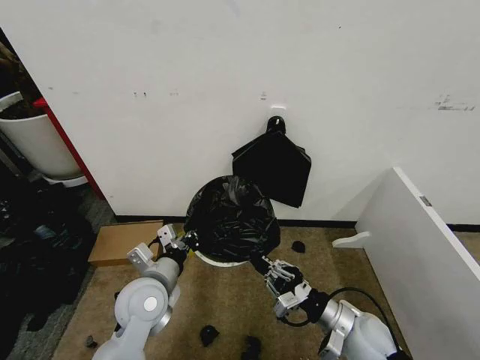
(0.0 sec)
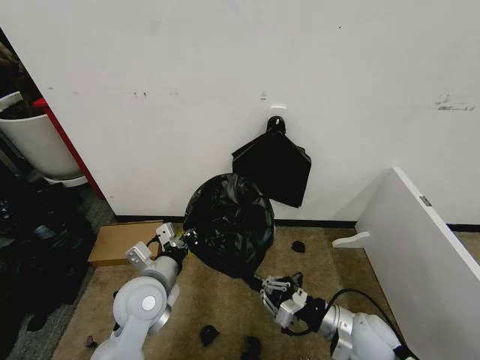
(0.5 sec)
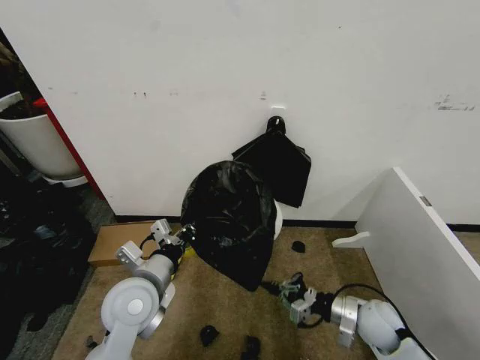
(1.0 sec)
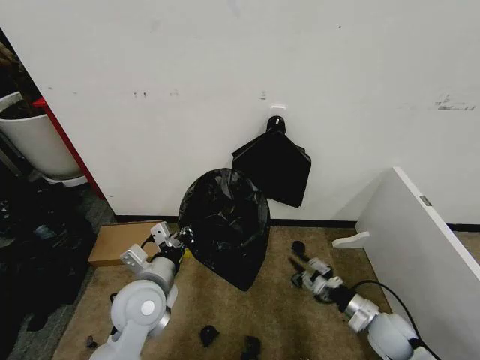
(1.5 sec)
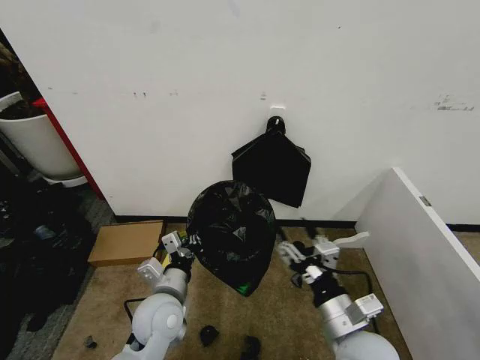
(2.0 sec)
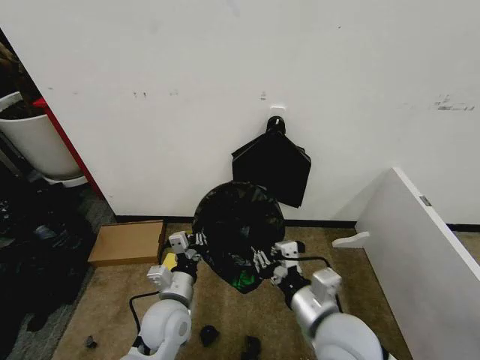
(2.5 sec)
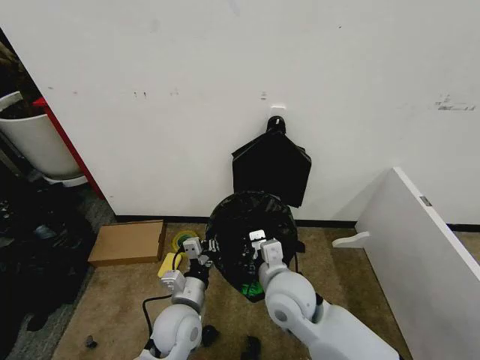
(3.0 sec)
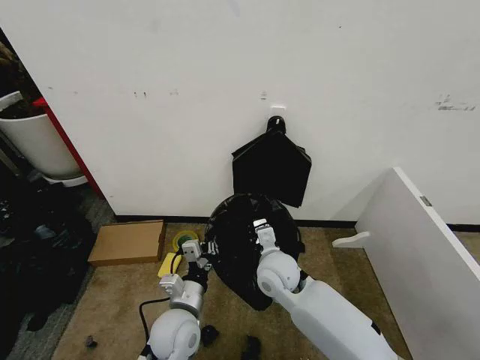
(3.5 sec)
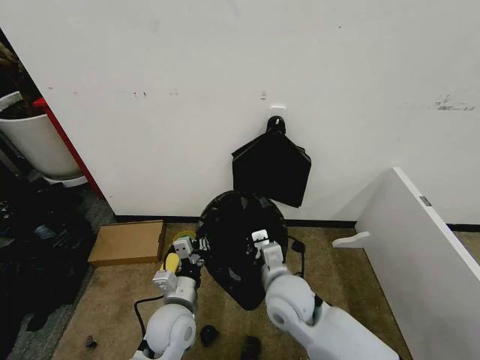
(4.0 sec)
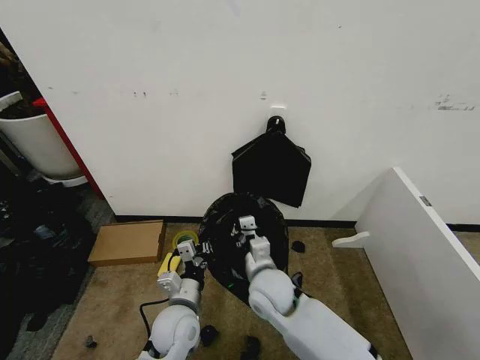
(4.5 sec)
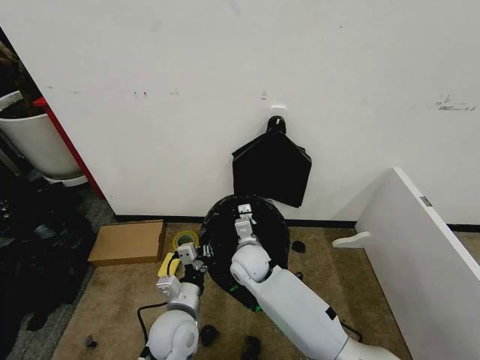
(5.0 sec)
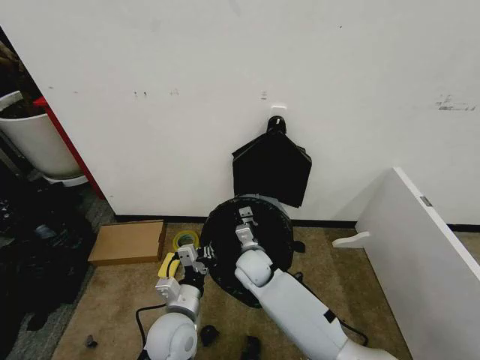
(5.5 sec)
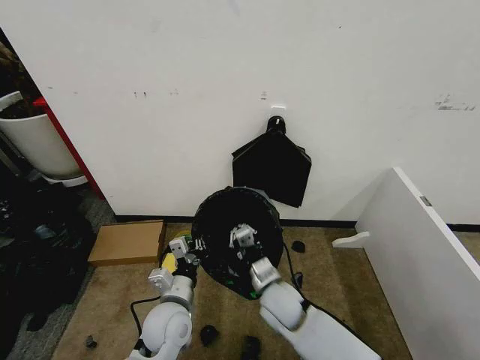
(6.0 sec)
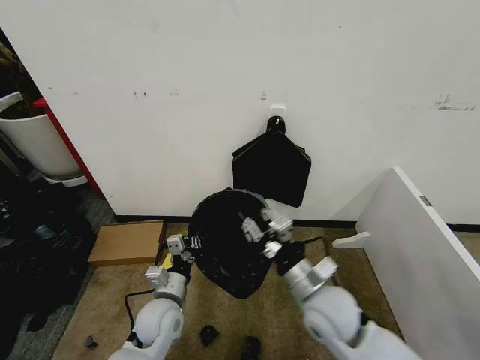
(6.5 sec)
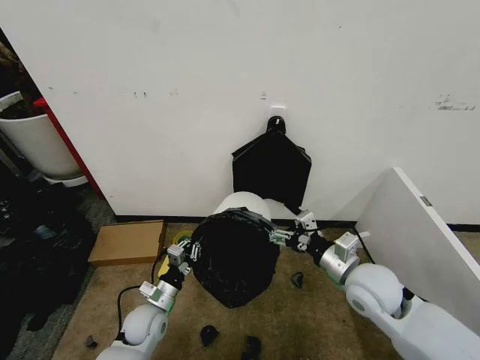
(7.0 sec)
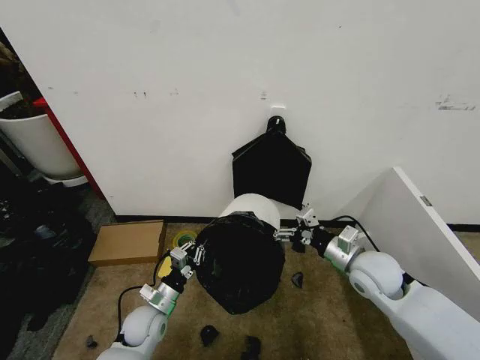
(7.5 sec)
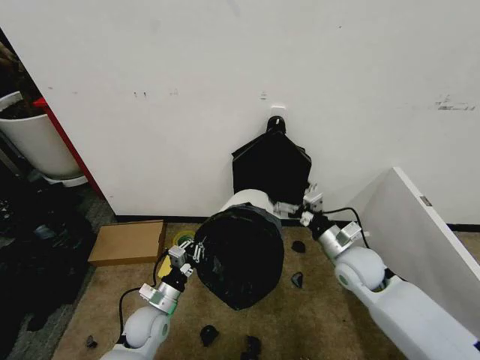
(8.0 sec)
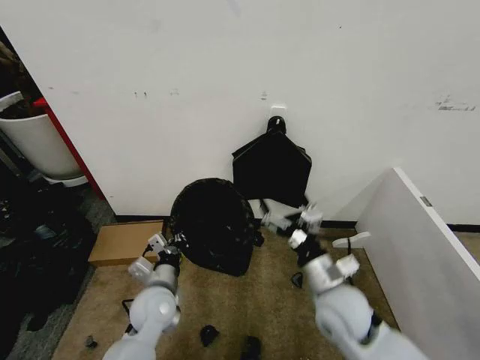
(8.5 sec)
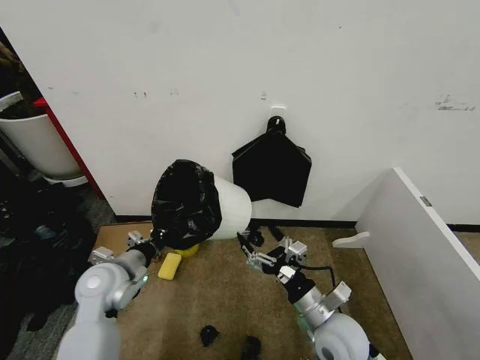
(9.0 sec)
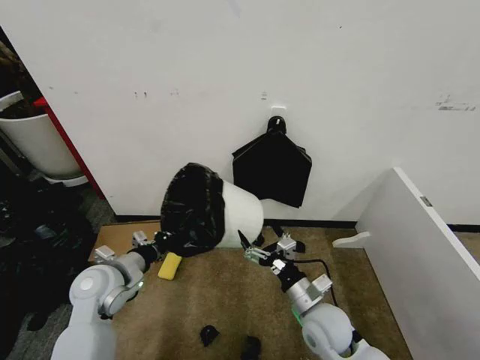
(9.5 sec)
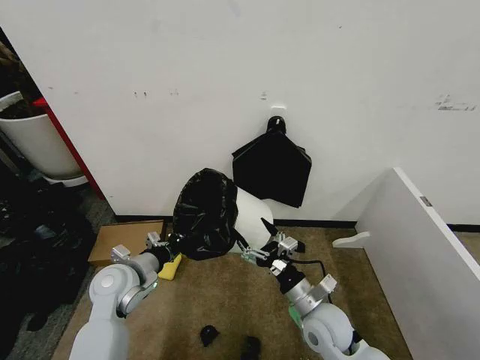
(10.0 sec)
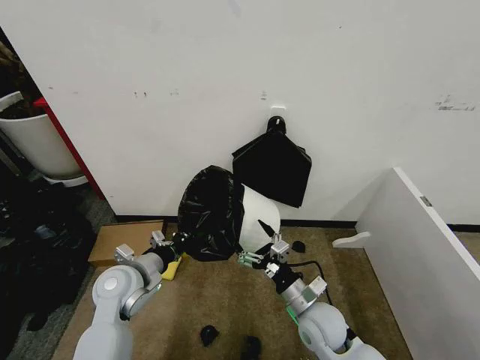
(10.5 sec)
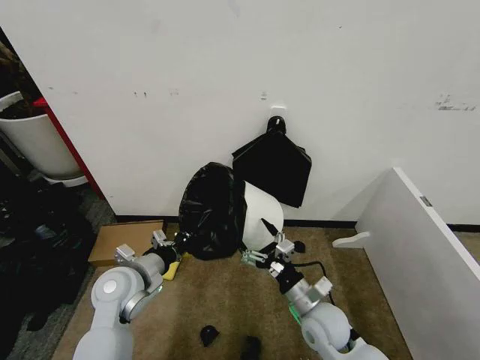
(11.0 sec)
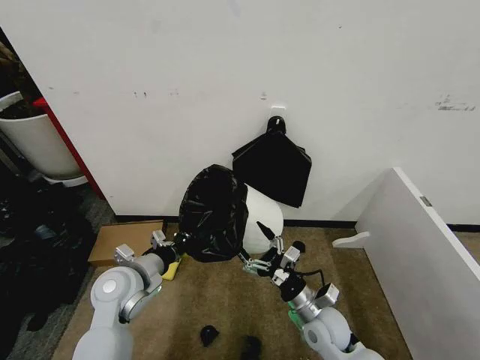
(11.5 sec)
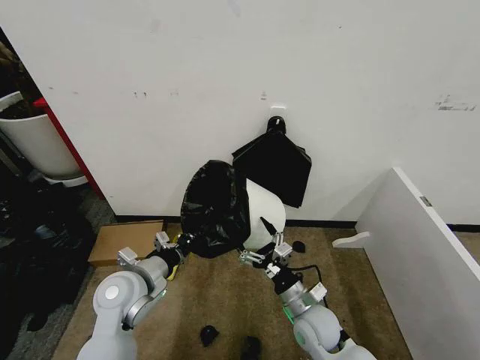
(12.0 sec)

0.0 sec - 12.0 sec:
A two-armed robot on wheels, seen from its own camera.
Task of the whole recording: Place the garbage bag over the trash bin.
0.0 sec - 2.0 sec: The right gripper moves upward and to the left, approximately 10 cm, and opens up; the left gripper changes place by approximately 5 cm.
2.0 sec - 4.0 sec: The right gripper goes approximately 15 cm forward and to the left, and closes its fingers.
4.0 sec - 6.0 sec: The right gripper moves downward, approximately 10 cm, and goes forward and returns, some 10 cm each way.
6.0 sec - 8.0 sec: The left gripper moves downward and to the left, about 10 cm, while the right gripper shifts roughly 20 cm to the right and upward, and opens.
8.0 sec - 10.0 sec: The left gripper heads upward, covering approximately 15 cm, while the right gripper goes roughly 15 cm backward, to the left and downward.
10.0 sec - 12.0 sec: The left gripper ends up approximately 5 cm from where it was.

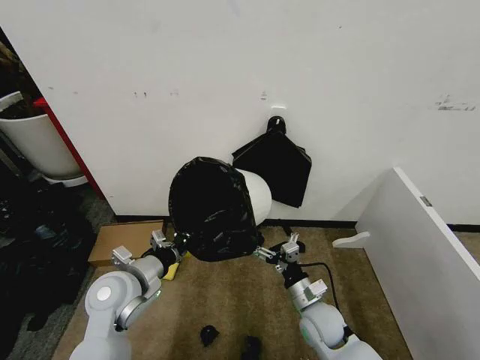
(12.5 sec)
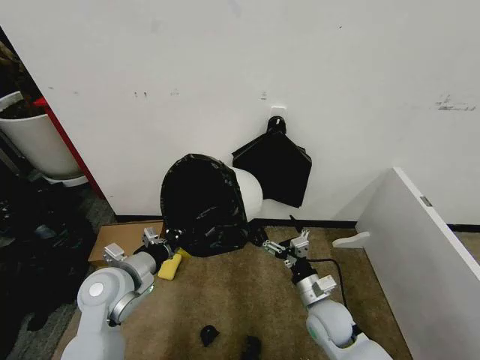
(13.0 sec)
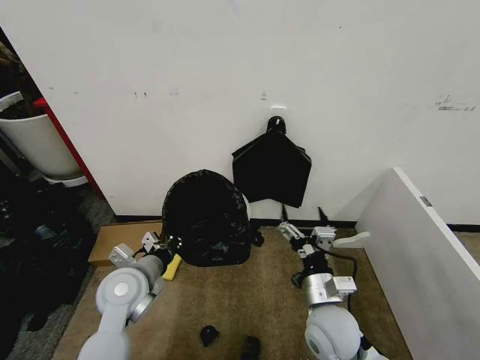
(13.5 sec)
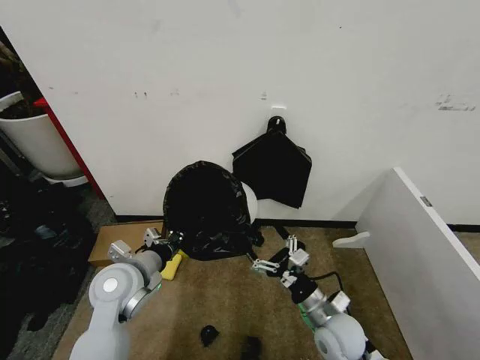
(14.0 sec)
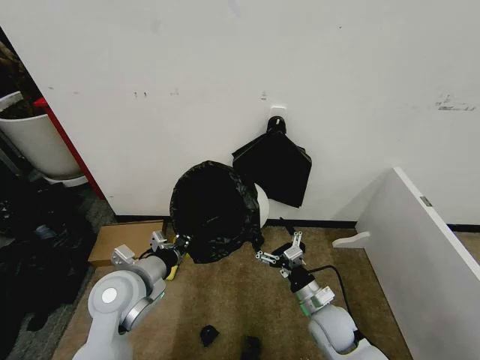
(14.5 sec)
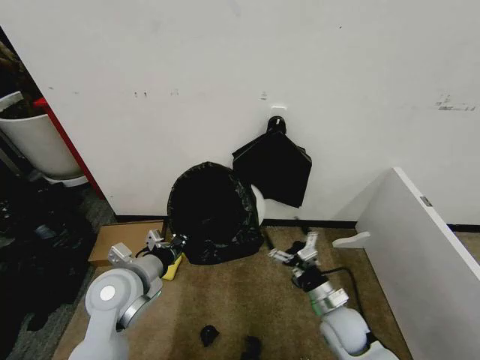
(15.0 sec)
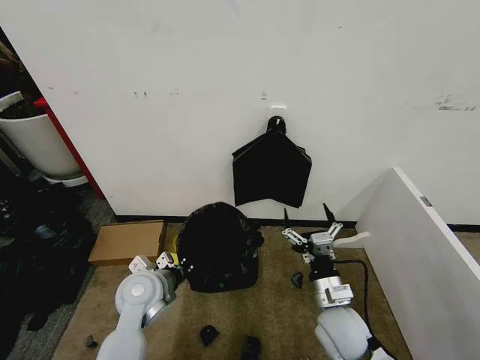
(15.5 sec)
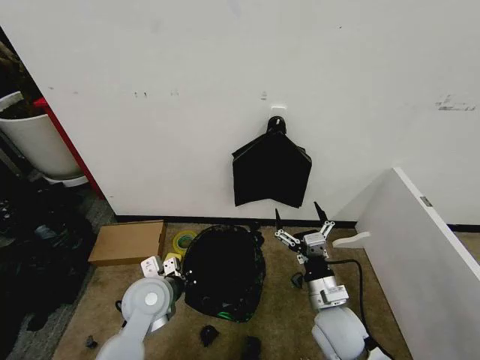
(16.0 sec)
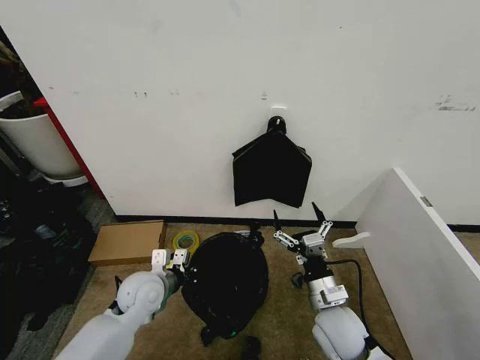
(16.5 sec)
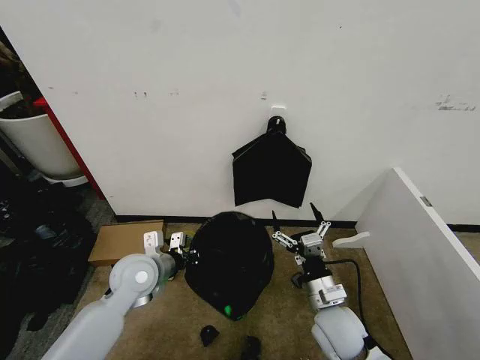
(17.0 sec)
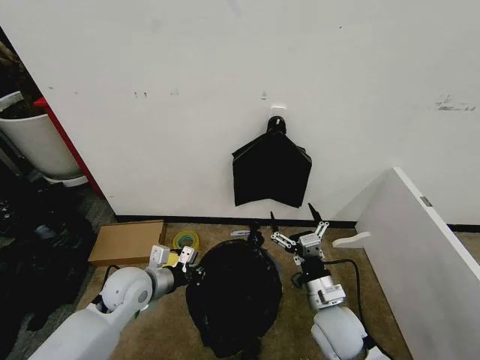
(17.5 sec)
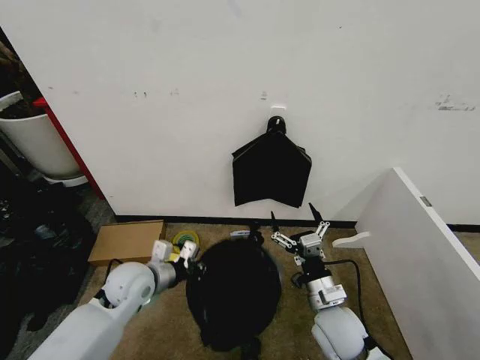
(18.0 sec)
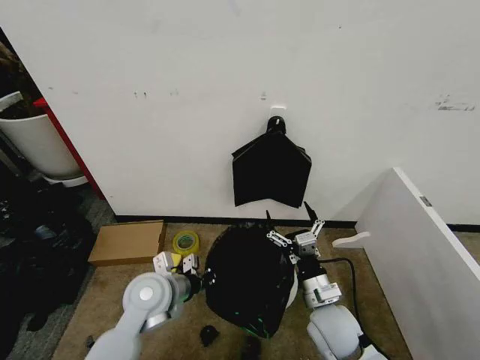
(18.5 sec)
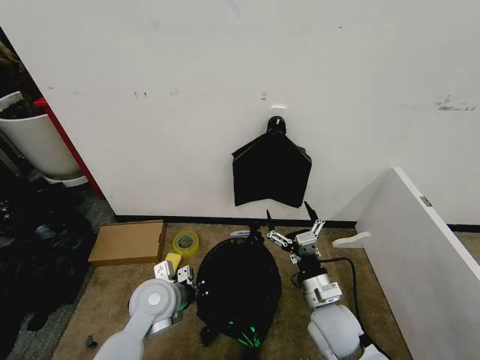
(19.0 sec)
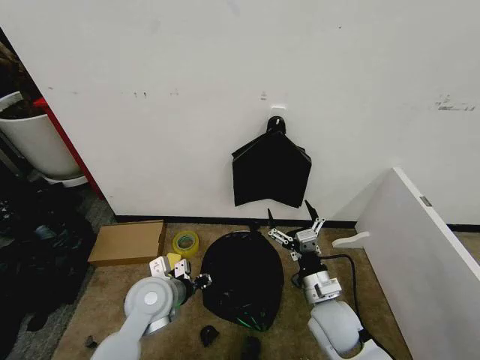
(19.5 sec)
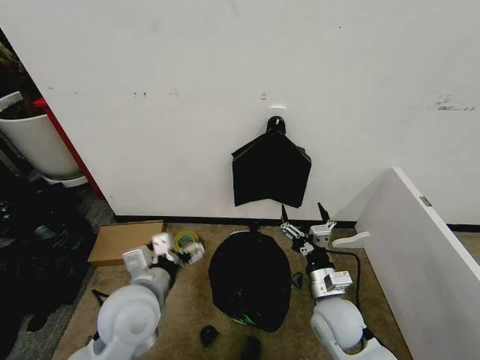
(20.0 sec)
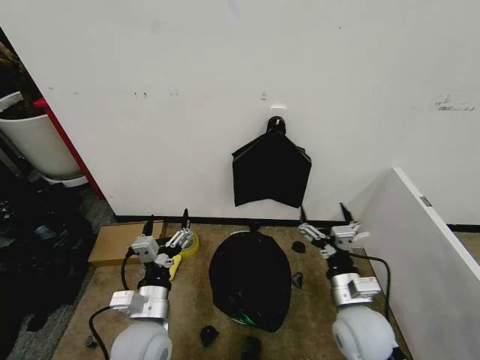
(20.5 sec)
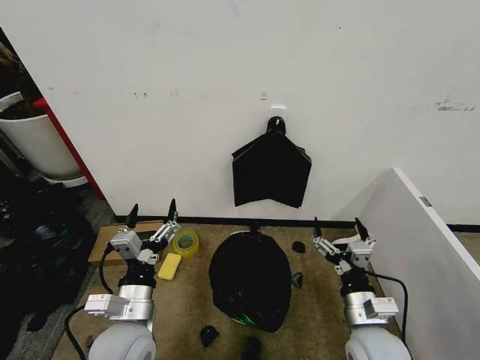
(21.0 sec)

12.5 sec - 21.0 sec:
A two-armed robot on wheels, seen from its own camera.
Task of the whole recording: Place the garbage bag over the trash bin.
12.5 sec - 14.5 sec: The right gripper reaches roughly 10 cm upward, then returns.
14.5 sec - 16.5 sec: The right gripper moves upward, some 5 cm. The left gripper is displaced downward by about 10 cm.
19.0 sec - 21.0 sec: The left gripper shifts about 10 cm backward, and opens up, while the right gripper moves to the right, some 5 cm.

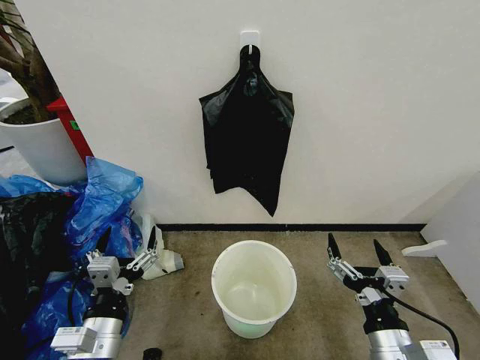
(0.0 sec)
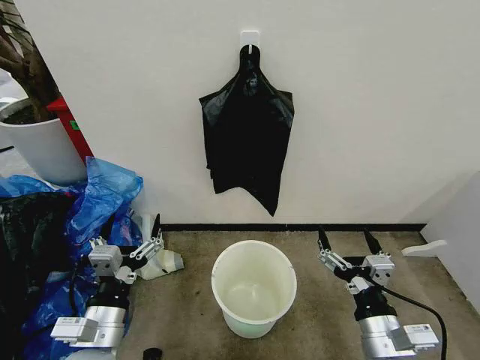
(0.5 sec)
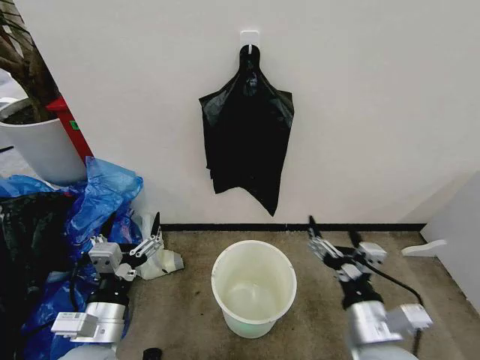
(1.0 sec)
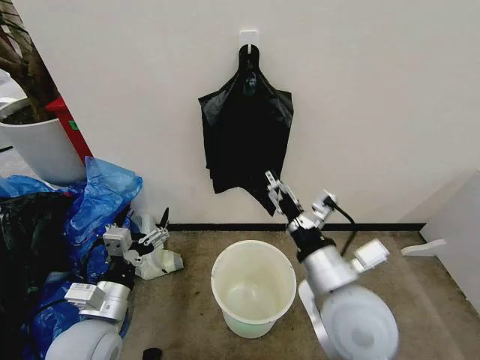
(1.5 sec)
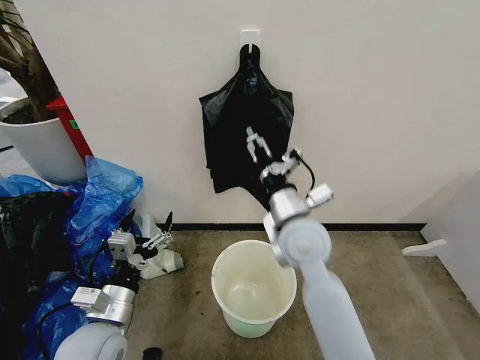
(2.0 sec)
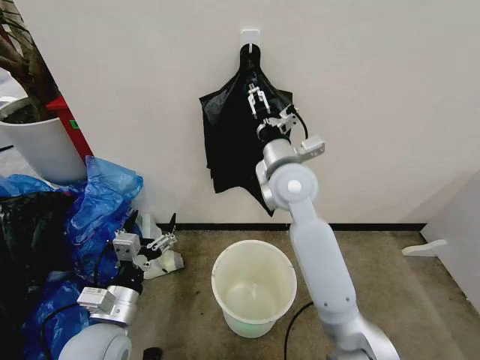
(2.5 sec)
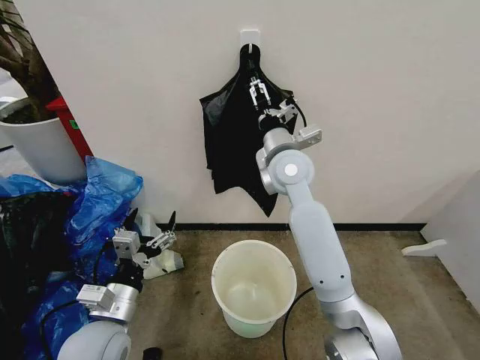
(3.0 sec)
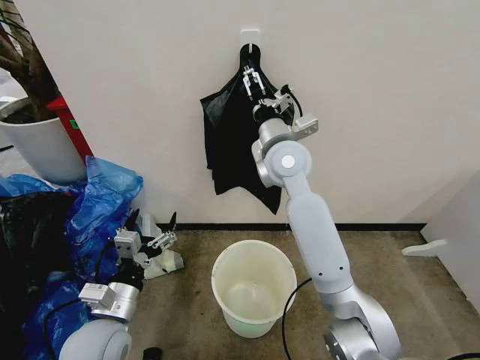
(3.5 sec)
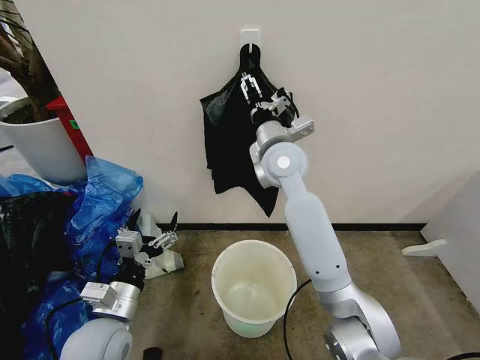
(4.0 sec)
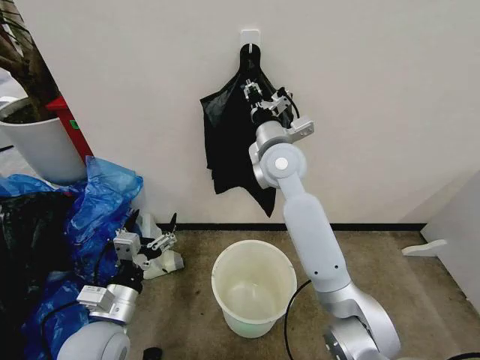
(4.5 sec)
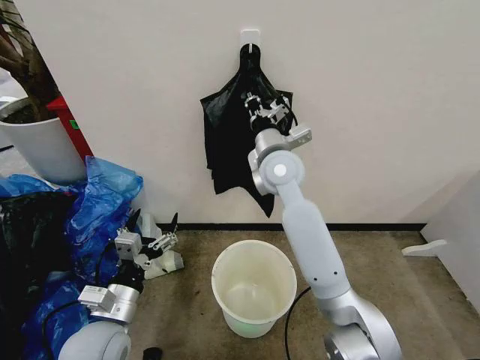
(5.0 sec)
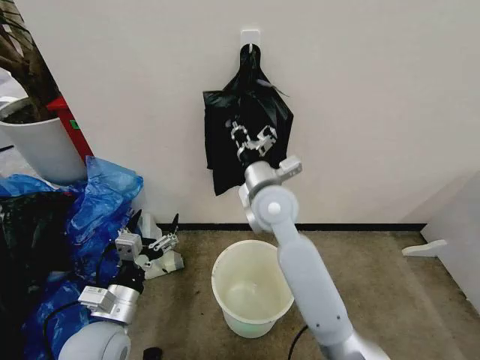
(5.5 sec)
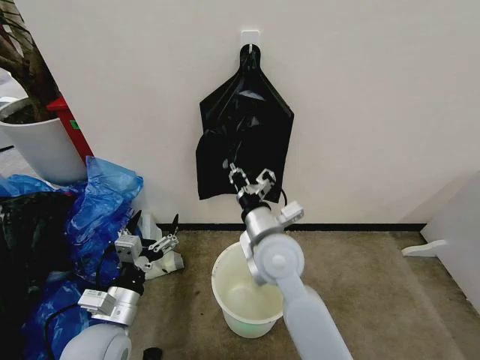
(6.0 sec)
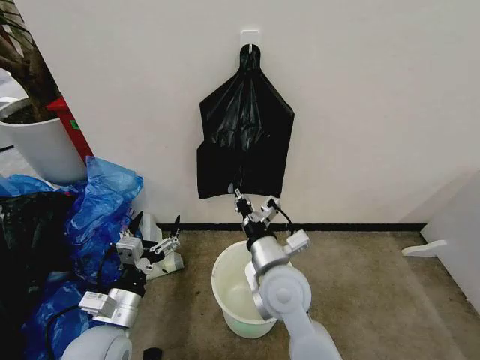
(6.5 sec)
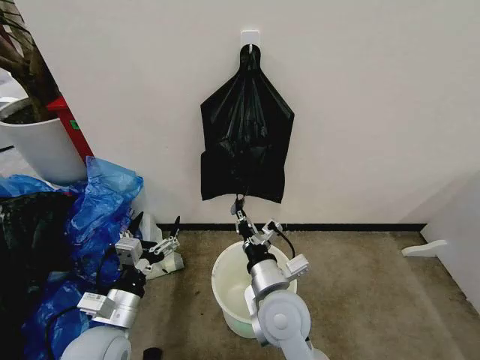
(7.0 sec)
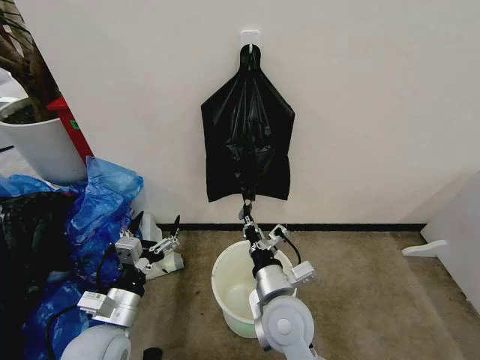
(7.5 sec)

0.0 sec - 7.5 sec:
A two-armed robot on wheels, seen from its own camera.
Task of the whole recording: Place the garbage bag over the trash bin.
2.0 sec - 4.0 sec: The right gripper heads forward and upward, covering about 15 cm.
4.0 sec - 5.5 sec: The right gripper shifts approximately 10 cm backward and downward, and closes.
5.5 sec - 7.5 sec: The right gripper heads backward and downward, covering some 20 cm.
